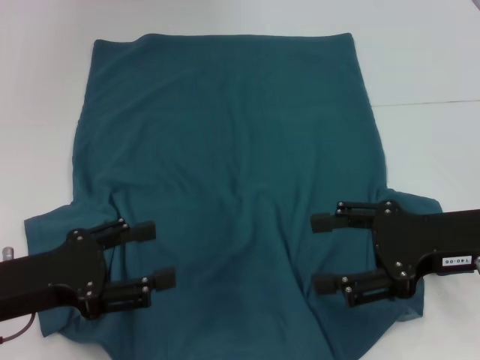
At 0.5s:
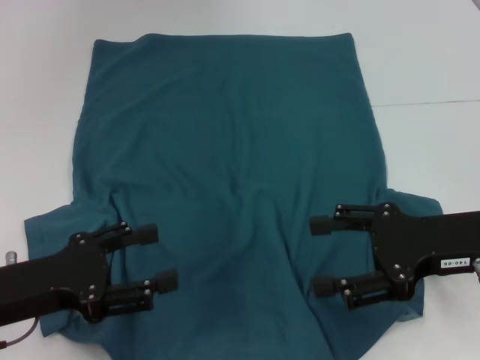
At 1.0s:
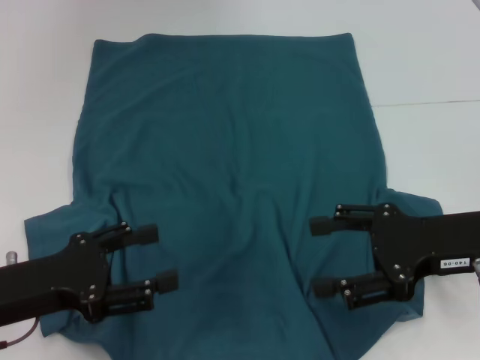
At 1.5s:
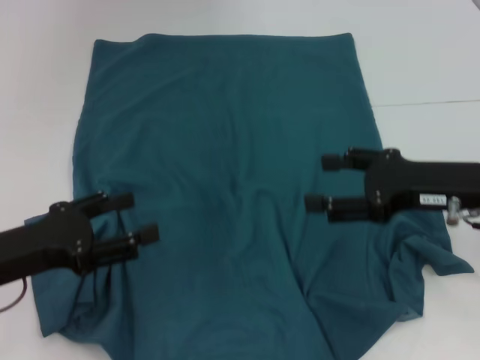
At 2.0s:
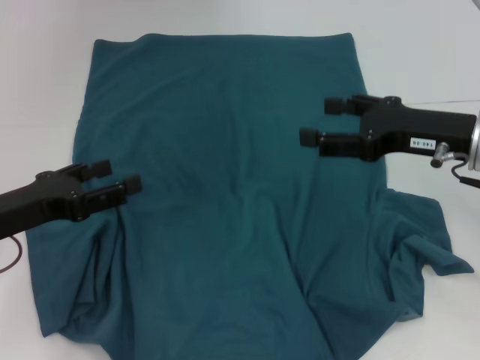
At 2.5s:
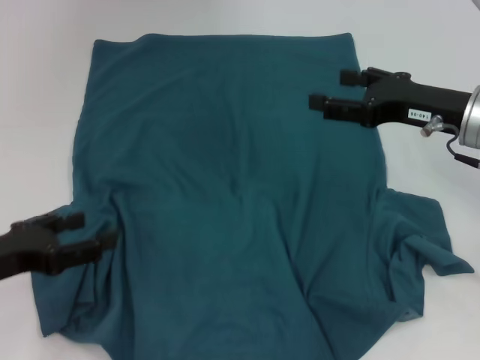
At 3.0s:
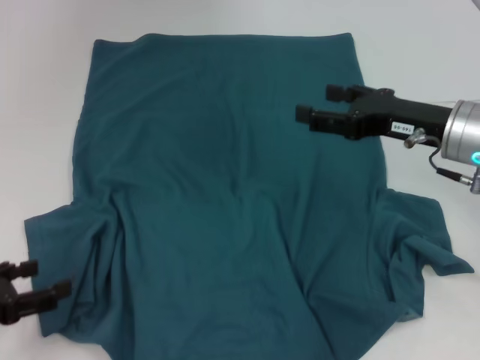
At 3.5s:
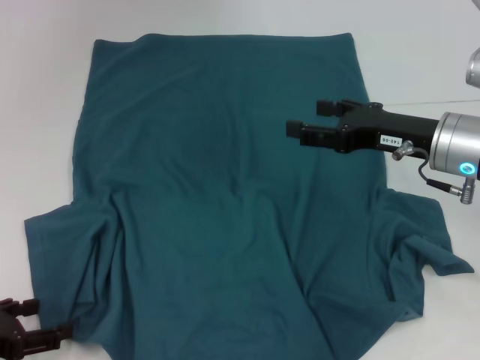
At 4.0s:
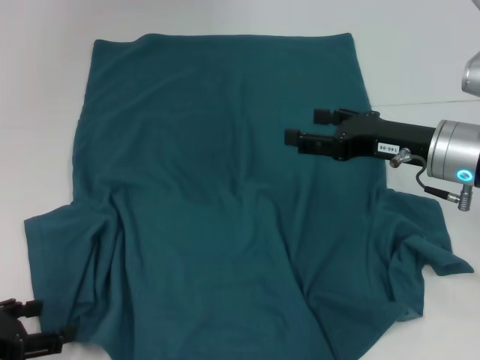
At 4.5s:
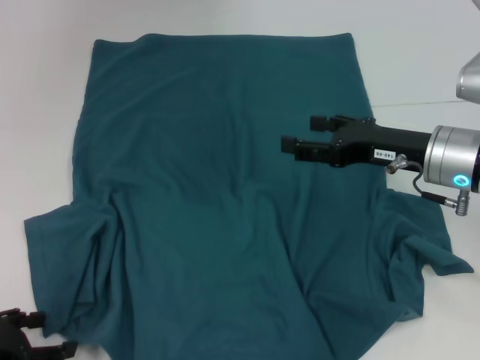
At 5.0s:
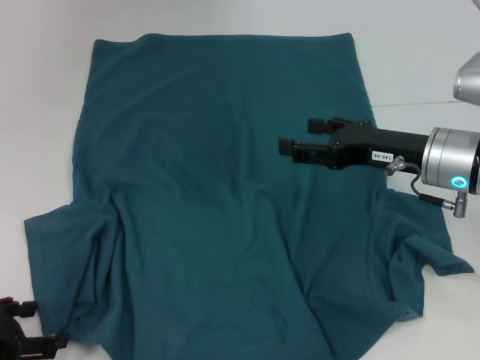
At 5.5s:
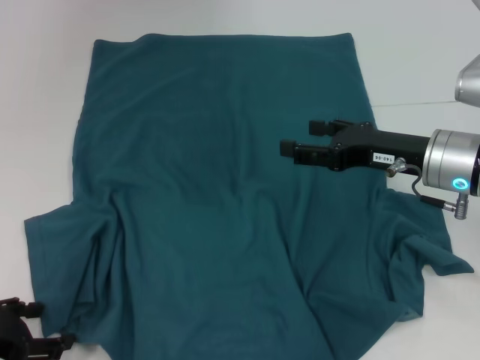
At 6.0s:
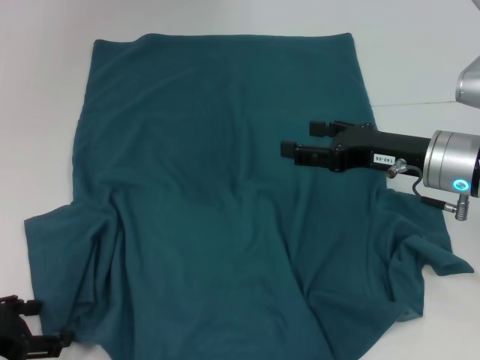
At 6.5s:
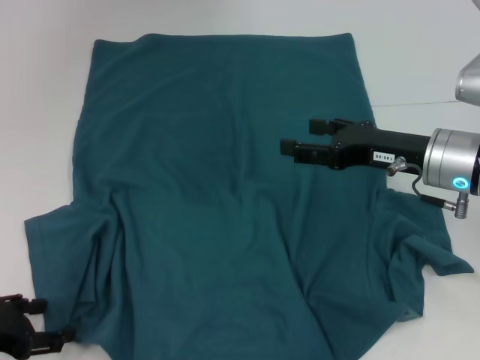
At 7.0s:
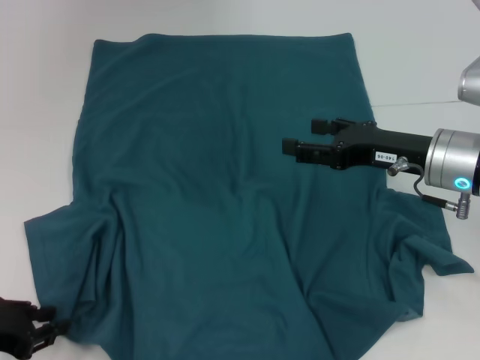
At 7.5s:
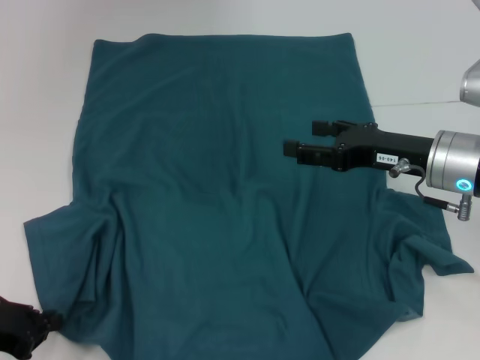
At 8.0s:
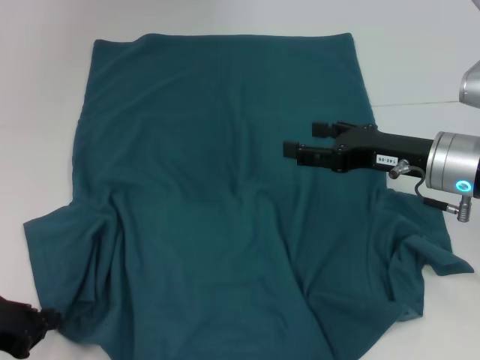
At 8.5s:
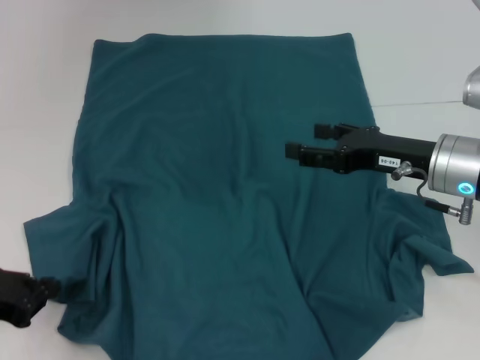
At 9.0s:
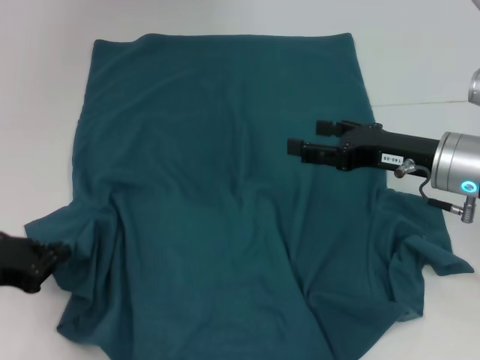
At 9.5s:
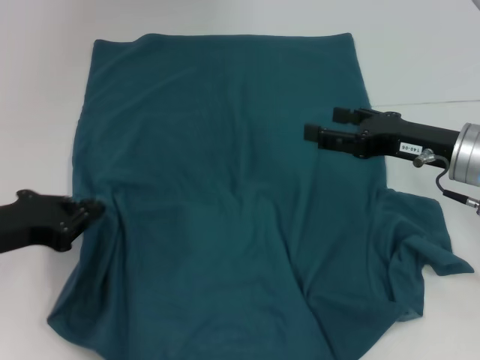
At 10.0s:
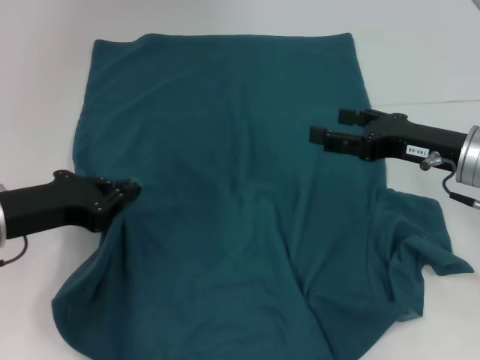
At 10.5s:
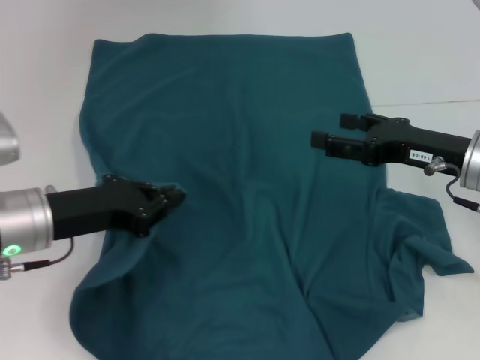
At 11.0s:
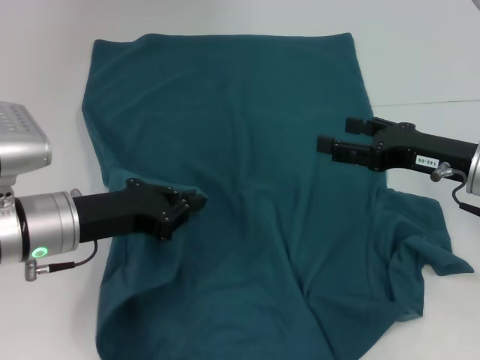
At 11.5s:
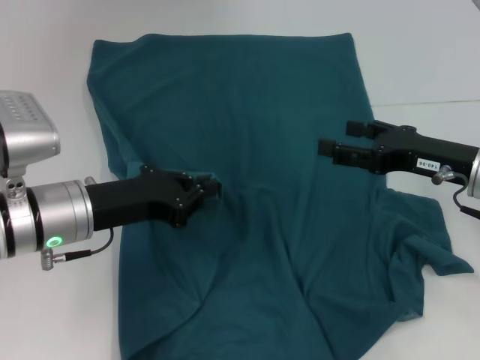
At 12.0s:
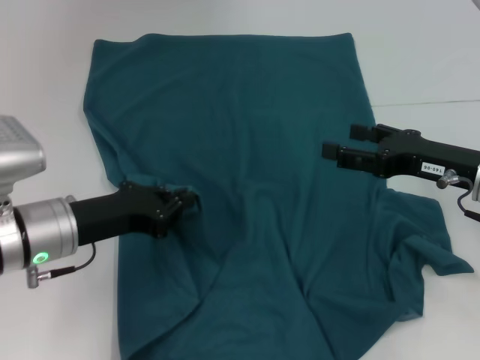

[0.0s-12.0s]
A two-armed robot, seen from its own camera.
0.0s to 2.0s: Both grippers travel together forward, about 5 cm.
2.0s to 4.0s: The left gripper moves backward and to the left, some 10 cm.
4.0s to 6.0s: The grippers move only a little.
6.0s to 8.0s: The left gripper closes.
8.0s to 10.0s: The left gripper moves forward, to the right and upward, some 10 cm.
10.0s to 12.0s: The left gripper ends up about 5 cm from where it was.

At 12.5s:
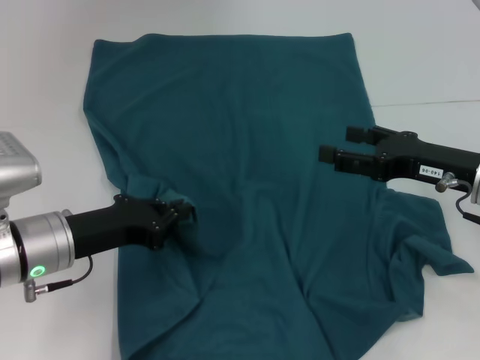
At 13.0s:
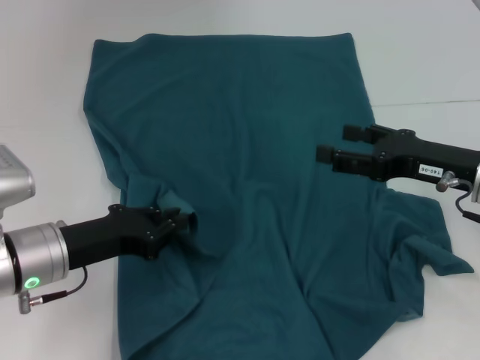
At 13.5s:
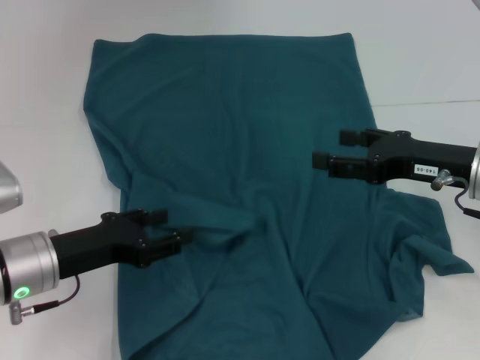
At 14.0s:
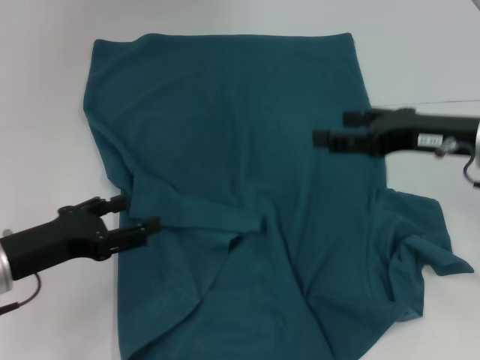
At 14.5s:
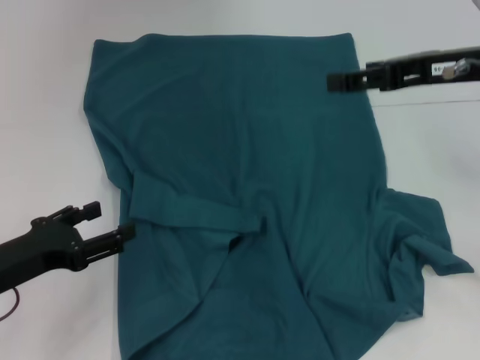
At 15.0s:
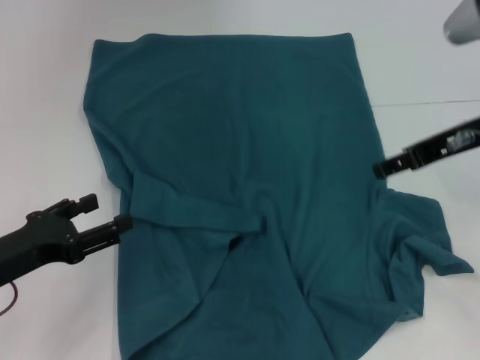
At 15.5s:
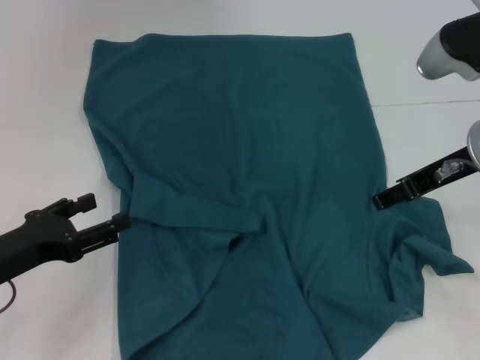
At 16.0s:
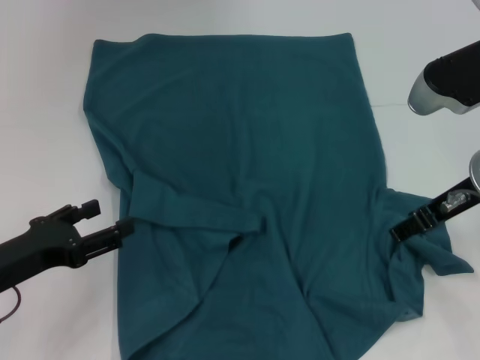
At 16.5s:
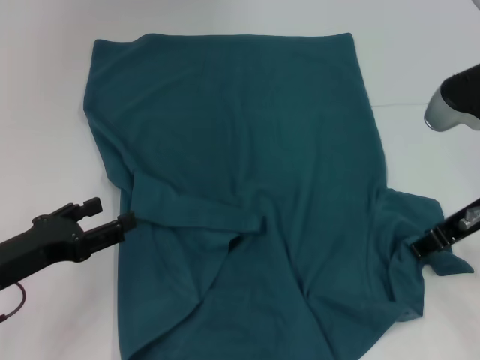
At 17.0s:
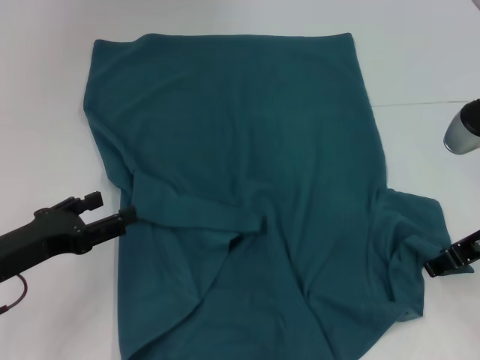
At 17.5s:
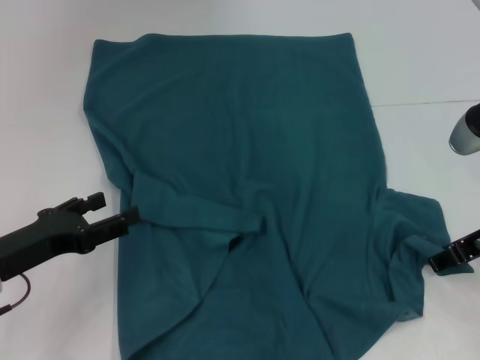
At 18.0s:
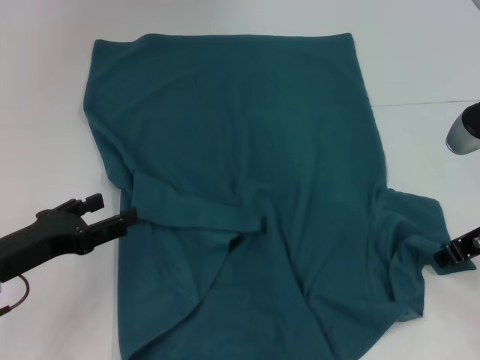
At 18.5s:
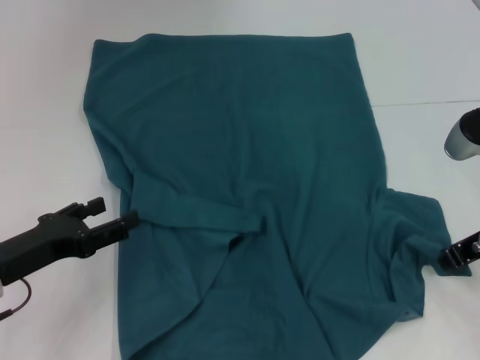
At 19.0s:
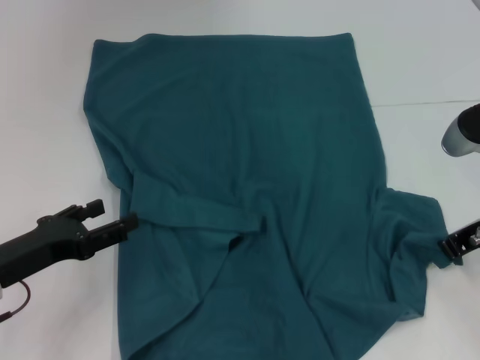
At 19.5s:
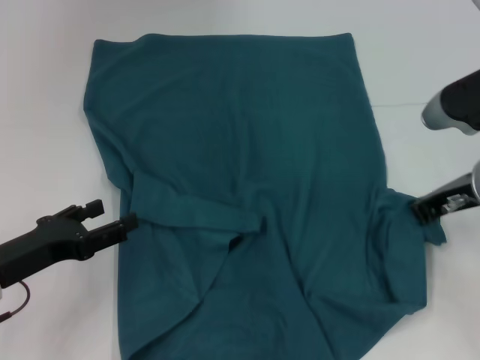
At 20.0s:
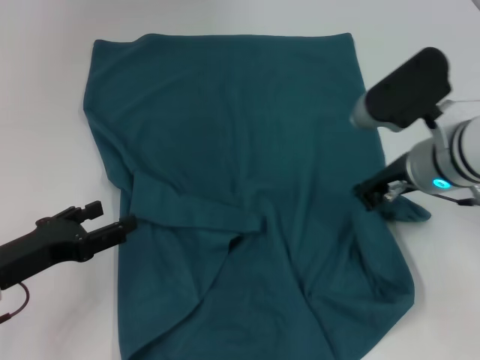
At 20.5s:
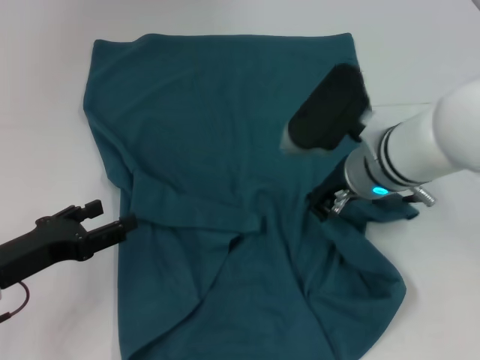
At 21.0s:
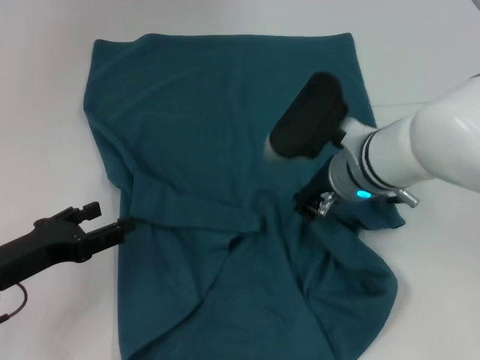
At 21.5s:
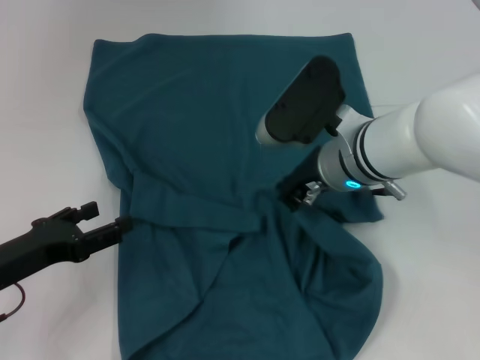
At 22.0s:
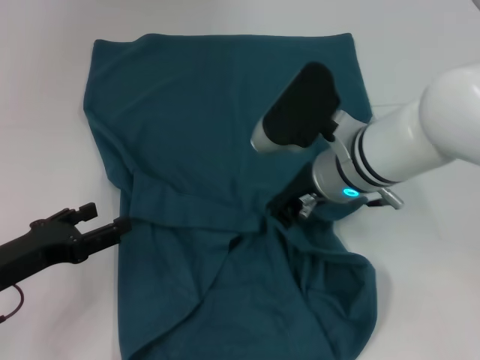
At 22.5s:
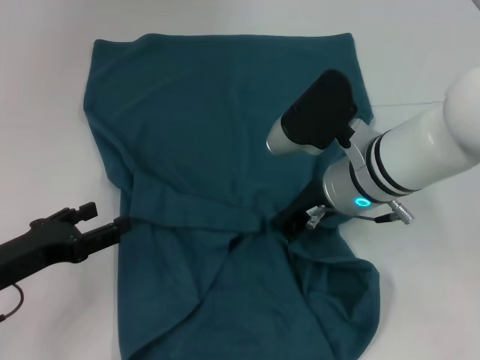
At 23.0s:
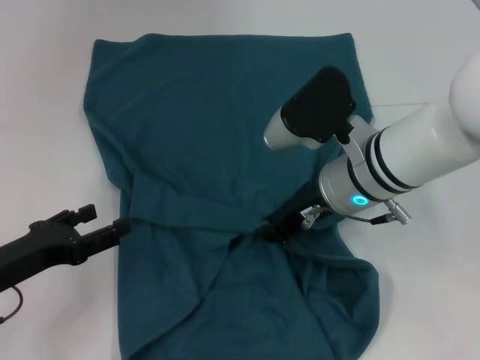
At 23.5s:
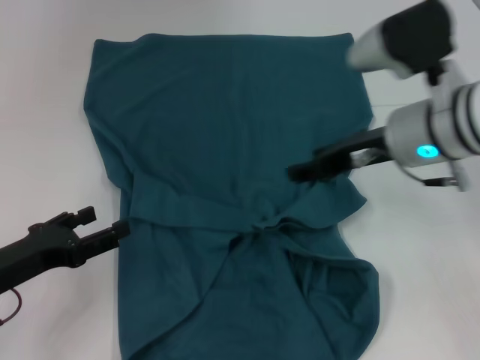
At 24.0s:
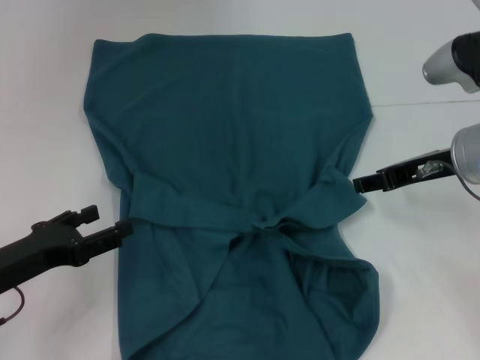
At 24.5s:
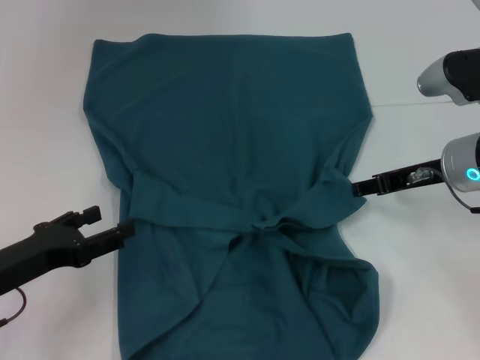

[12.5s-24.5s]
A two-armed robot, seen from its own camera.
12.5s to 14.5s: The right gripper goes about 15 cm upward; the left gripper is displaced to the left by about 5 cm, and opens.
14.5s to 16.5s: The right gripper goes roughly 5 cm downward.
16.5s to 18.5s: There are only small adjustments of the grippers.
18.5s to 20.5s: The right gripper moves to the left and forward, about 15 cm, and closes.
20.5s to 22.5s: The grippers move only a little.
22.5s to 24.5s: The right gripper travels to the right by some 10 cm, and opens up.

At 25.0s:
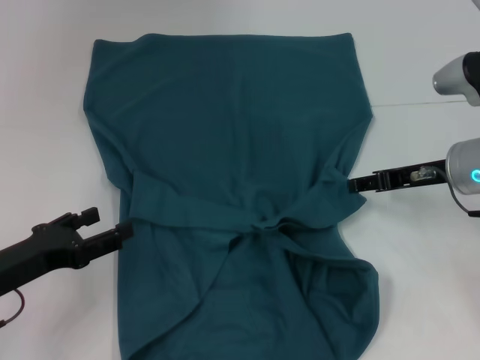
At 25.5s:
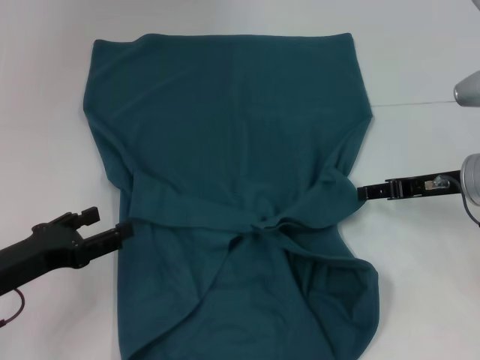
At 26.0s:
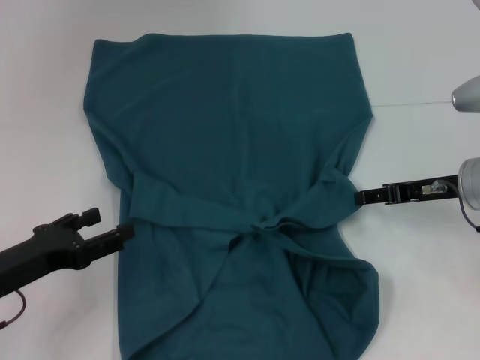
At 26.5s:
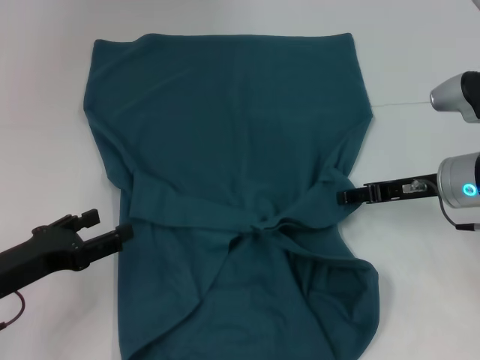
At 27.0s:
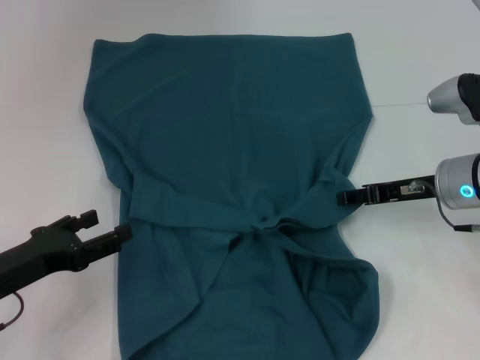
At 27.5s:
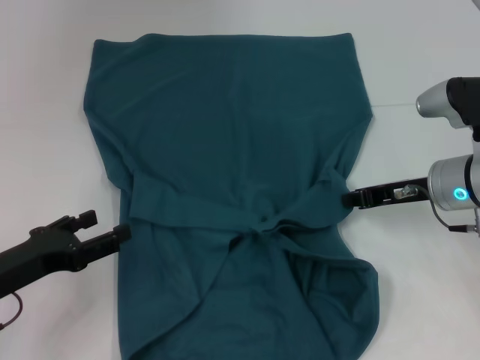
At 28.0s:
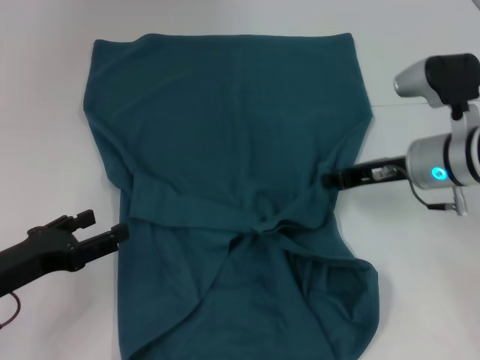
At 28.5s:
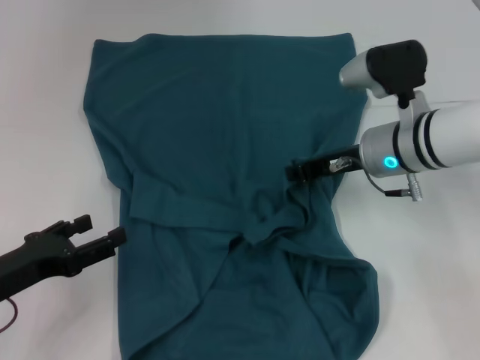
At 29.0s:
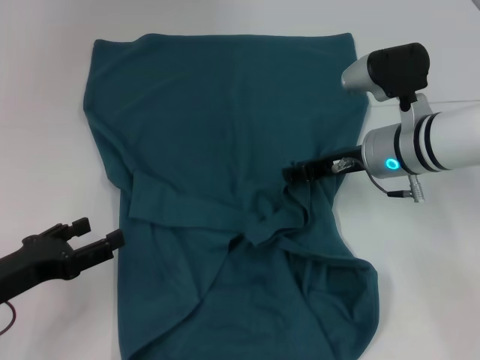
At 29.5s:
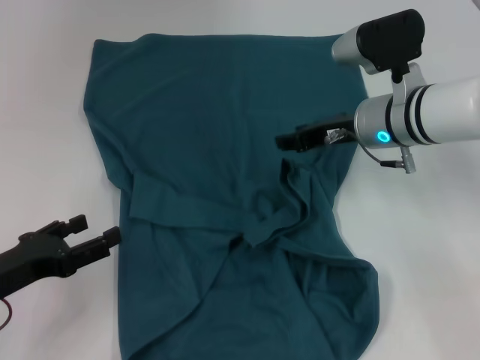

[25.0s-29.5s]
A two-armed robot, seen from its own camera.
25.0s to 27.0s: The grippers make only small movements.
27.0s to 29.5s: The right gripper travels to the left and forward by approximately 10 cm, and closes, then reopens.
